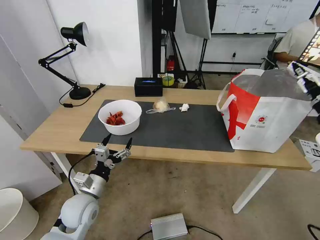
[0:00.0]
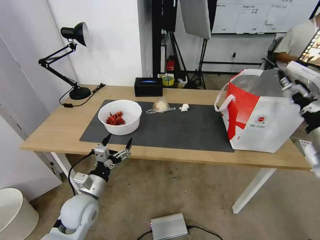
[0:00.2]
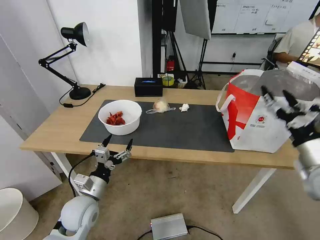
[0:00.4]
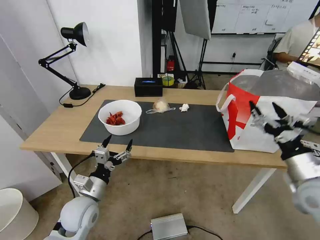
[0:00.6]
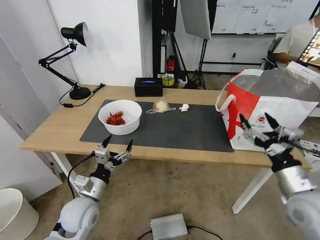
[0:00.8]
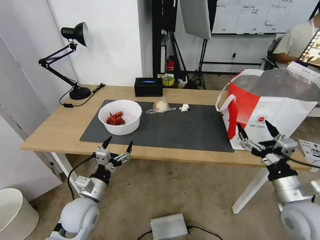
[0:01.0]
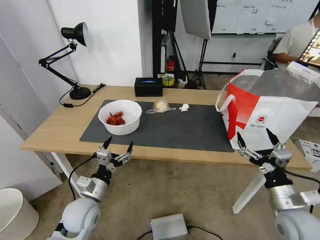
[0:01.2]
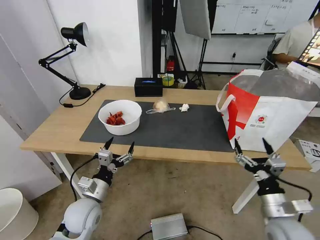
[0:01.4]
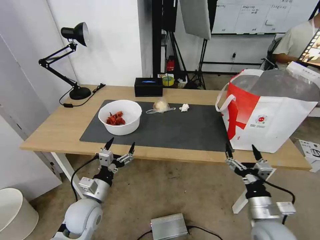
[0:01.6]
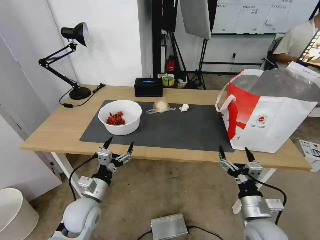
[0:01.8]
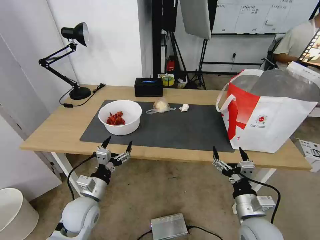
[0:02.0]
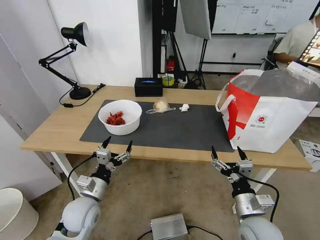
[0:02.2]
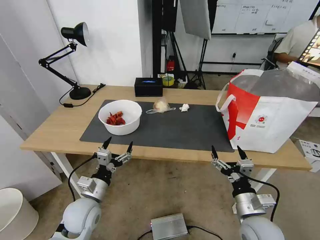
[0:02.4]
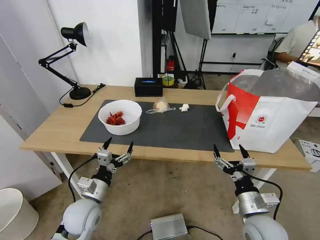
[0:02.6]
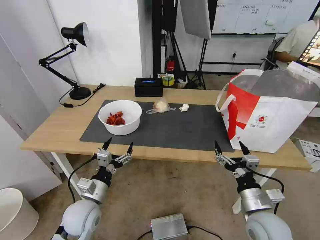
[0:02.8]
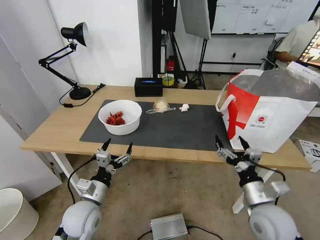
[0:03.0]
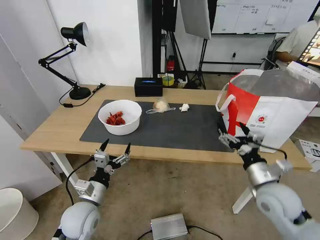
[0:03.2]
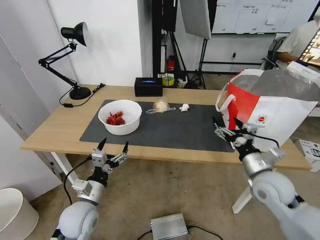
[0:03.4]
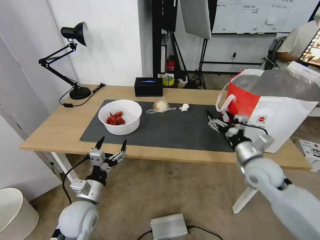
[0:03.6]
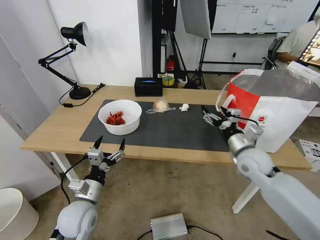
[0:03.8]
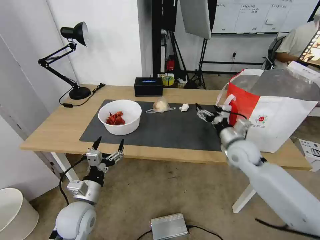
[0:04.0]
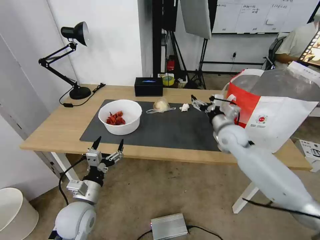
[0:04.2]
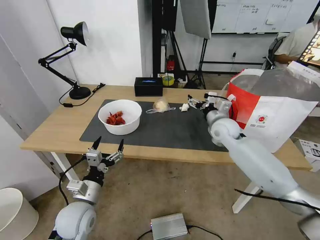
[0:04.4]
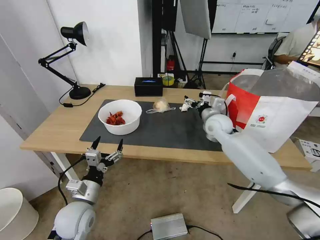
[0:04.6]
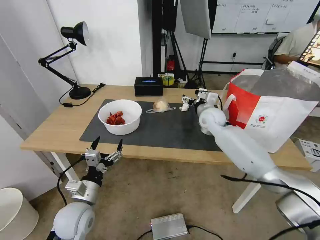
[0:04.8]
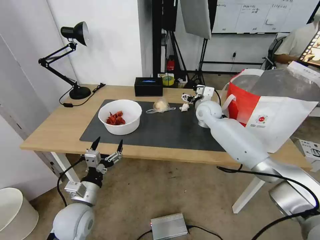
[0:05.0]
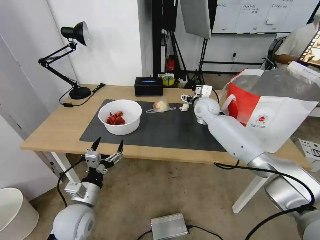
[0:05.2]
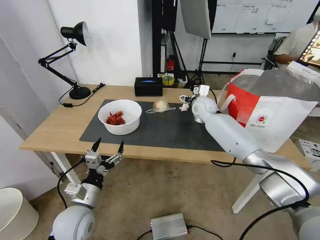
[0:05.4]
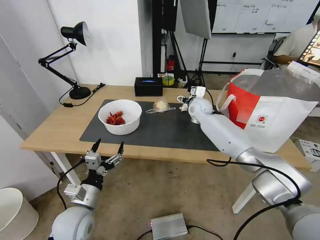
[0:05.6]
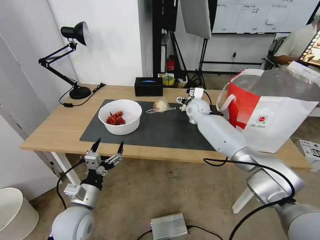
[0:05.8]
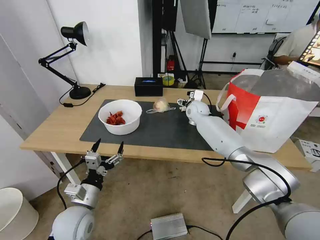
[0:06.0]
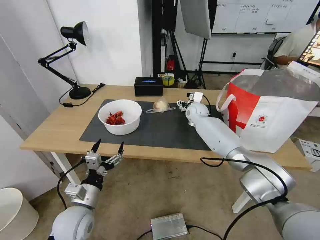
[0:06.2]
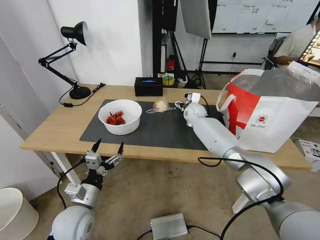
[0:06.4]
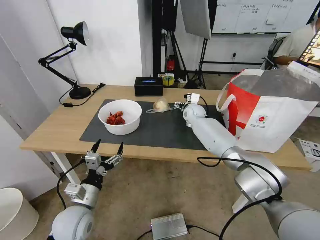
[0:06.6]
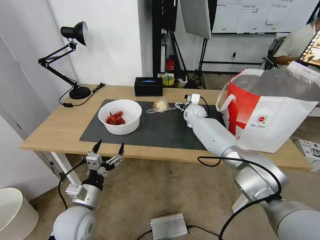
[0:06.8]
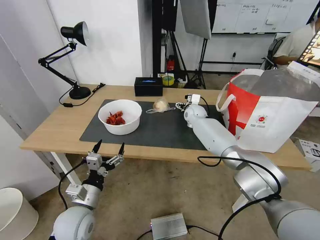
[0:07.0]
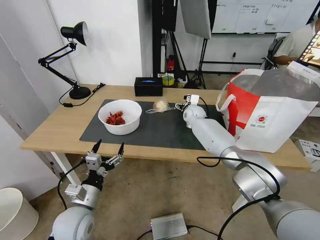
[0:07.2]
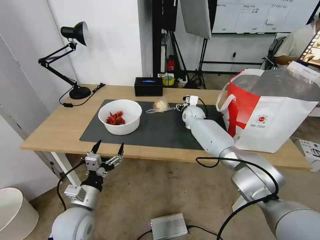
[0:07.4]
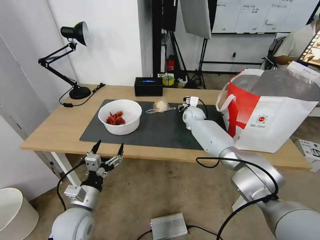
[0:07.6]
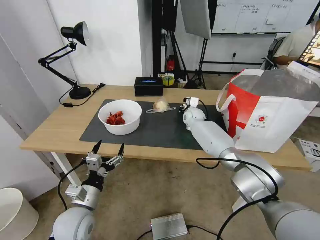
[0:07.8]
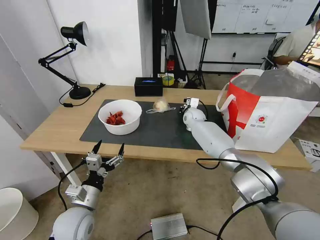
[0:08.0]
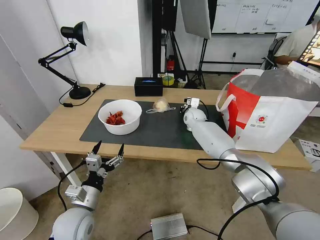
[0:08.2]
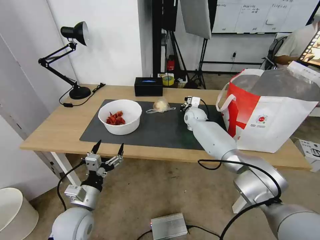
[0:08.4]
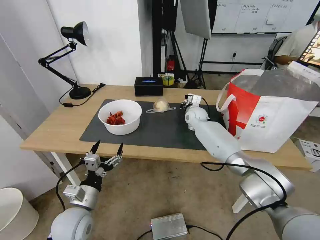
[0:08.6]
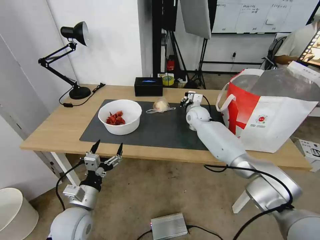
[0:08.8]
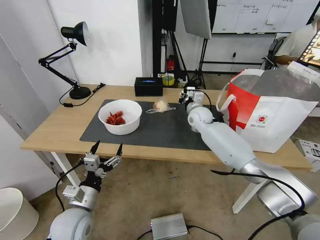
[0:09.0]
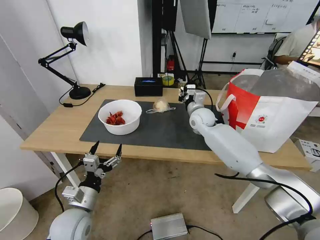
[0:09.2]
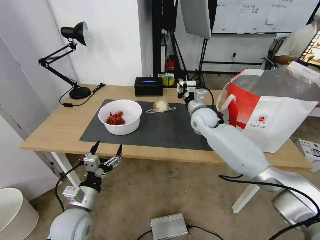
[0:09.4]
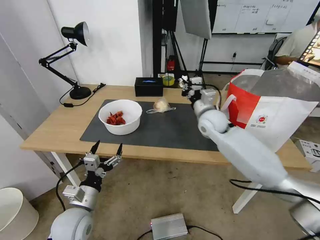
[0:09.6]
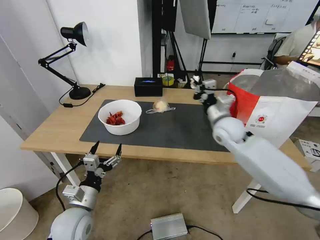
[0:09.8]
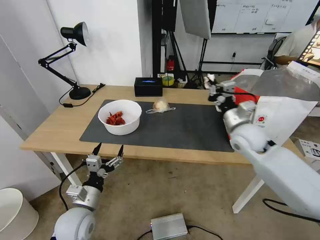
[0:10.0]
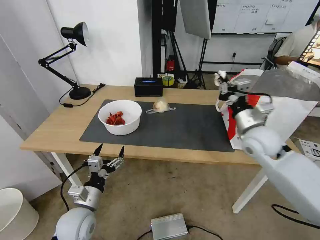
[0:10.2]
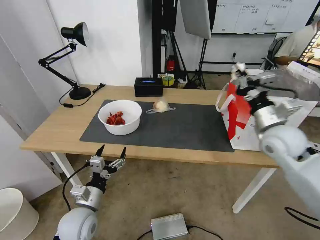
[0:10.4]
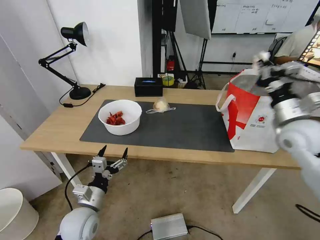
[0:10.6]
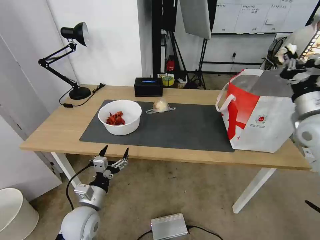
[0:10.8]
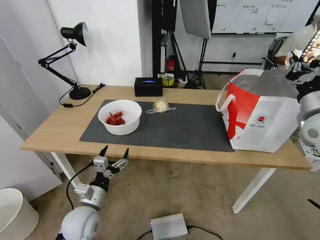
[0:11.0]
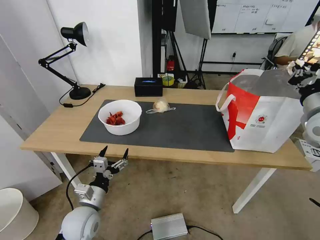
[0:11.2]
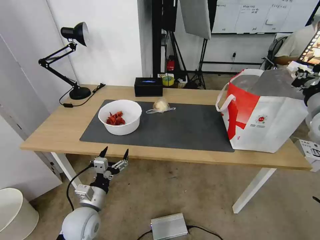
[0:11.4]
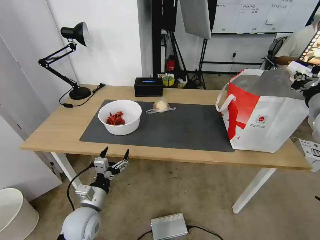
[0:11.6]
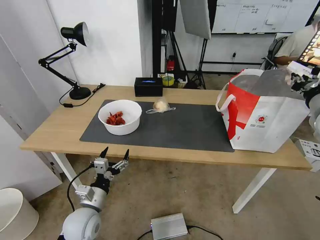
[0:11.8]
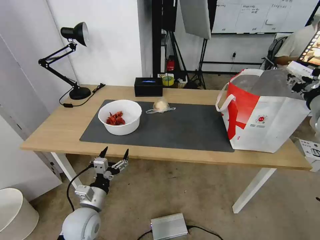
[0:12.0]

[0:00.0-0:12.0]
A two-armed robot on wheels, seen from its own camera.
Task of the whole recording: Pick up the trash from the table and place it into the takeout bag.
0:00.0 to 0:01.6: The right gripper moves downward, to the left and backward, roughly 30 cm.
0:01.6 to 0:03.0: The right gripper shifts by roughly 5 cm.
0:03.0 to 0:04.4: The right gripper goes approximately 30 cm forward.
0:04.4 to 0:06.0: The right gripper goes about 15 cm forward and to the left.
0:06.0 to 0:07.6: The right gripper closes.
0:07.6 to 0:09.0: The right gripper is displaced backward by roughly 5 cm, and closes its fingers.
0:09.0 to 0:10.4: The right gripper goes about 30 cm backward, to the right and upward.
0:10.4 to 0:12.0: The right gripper is displaced to the right and upward by roughly 15 cm, and opens up.

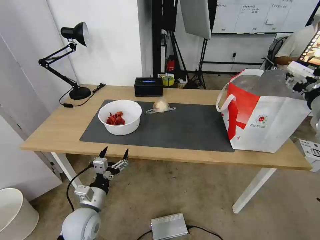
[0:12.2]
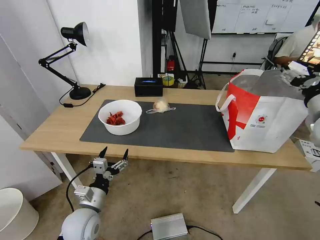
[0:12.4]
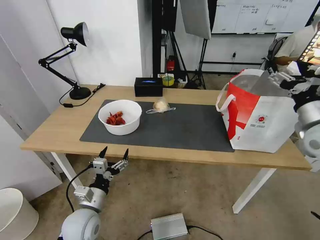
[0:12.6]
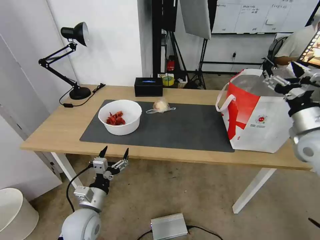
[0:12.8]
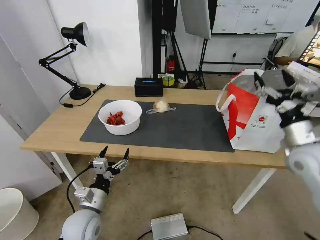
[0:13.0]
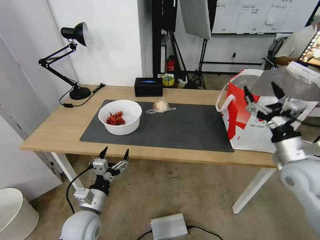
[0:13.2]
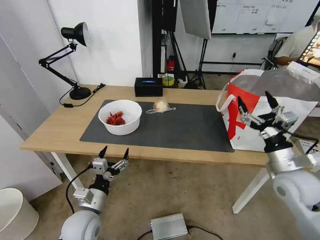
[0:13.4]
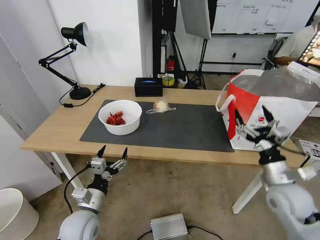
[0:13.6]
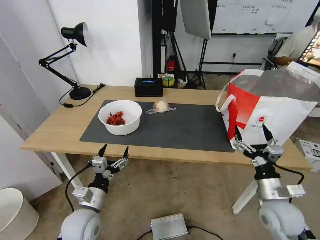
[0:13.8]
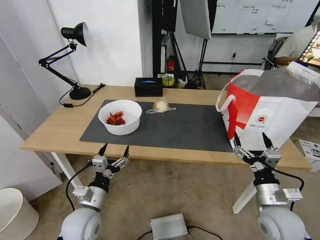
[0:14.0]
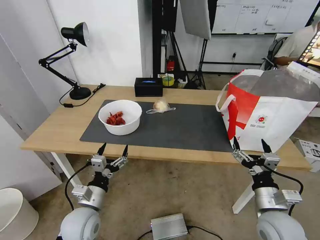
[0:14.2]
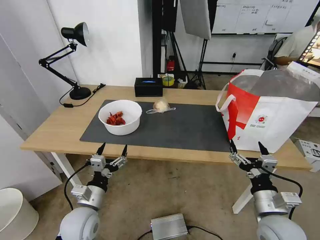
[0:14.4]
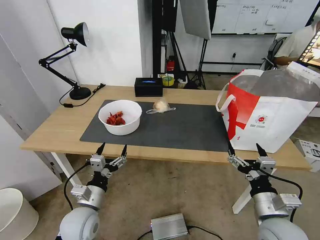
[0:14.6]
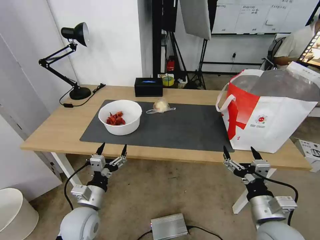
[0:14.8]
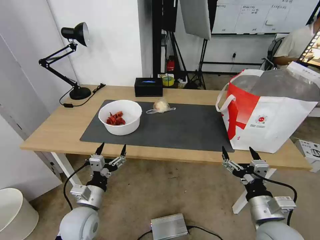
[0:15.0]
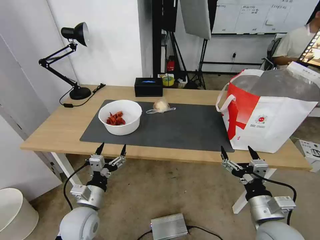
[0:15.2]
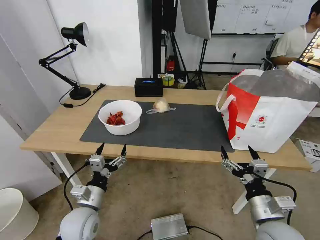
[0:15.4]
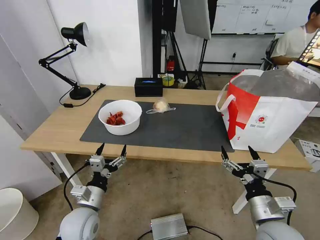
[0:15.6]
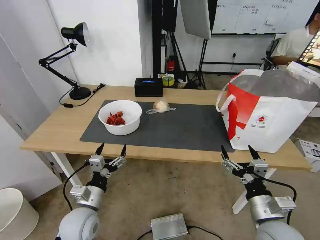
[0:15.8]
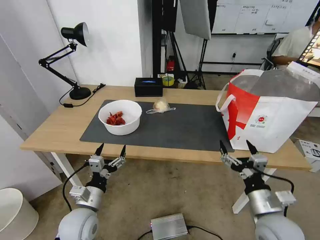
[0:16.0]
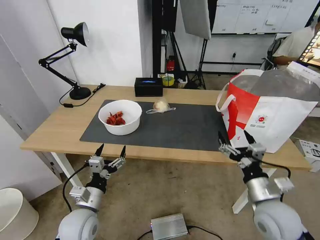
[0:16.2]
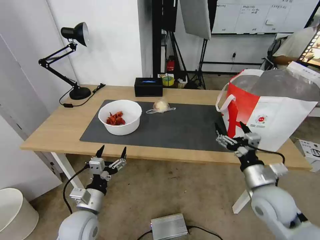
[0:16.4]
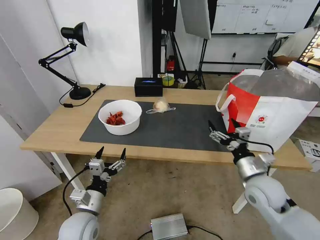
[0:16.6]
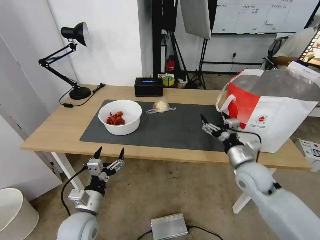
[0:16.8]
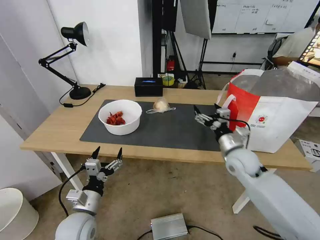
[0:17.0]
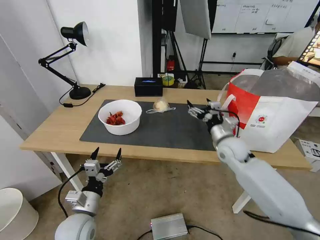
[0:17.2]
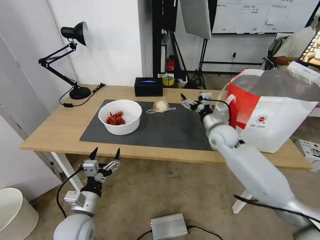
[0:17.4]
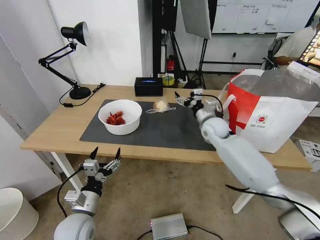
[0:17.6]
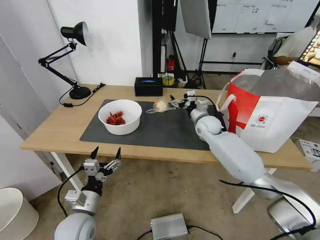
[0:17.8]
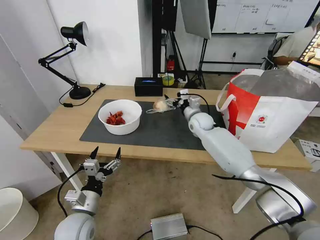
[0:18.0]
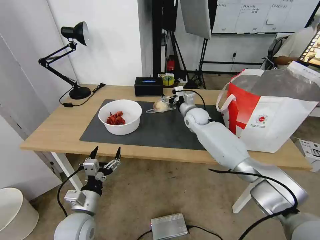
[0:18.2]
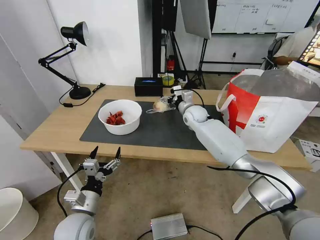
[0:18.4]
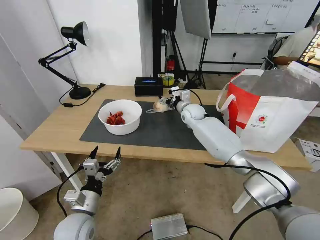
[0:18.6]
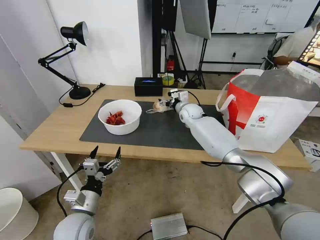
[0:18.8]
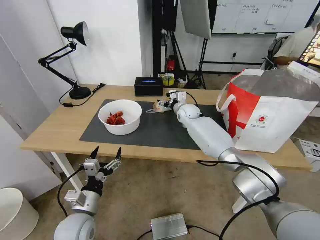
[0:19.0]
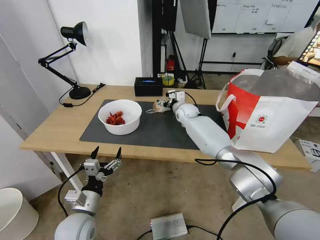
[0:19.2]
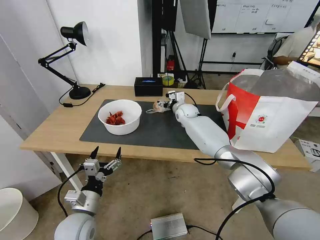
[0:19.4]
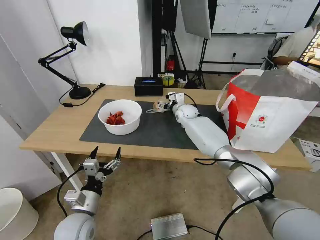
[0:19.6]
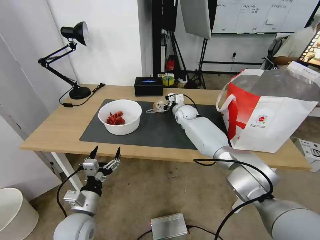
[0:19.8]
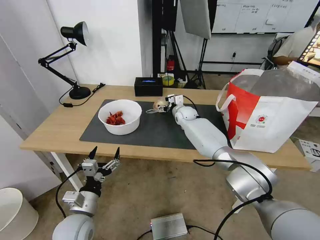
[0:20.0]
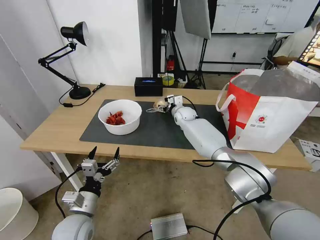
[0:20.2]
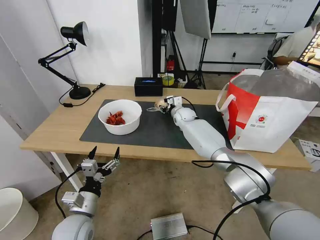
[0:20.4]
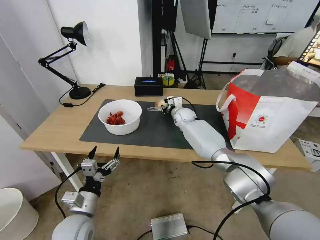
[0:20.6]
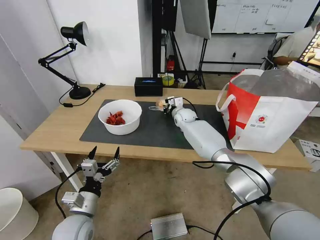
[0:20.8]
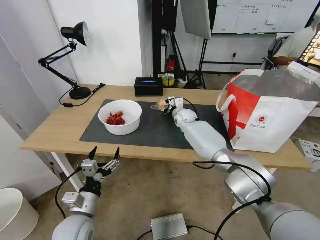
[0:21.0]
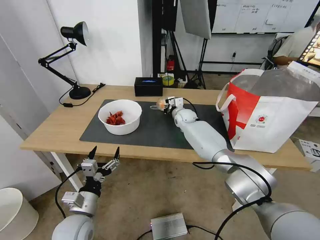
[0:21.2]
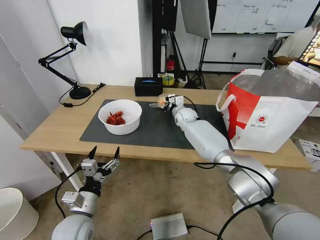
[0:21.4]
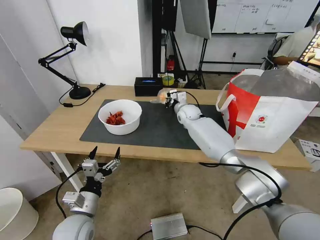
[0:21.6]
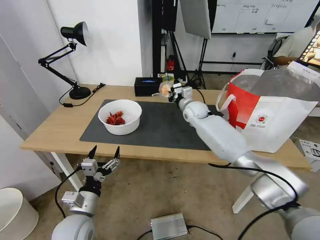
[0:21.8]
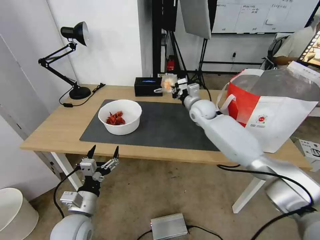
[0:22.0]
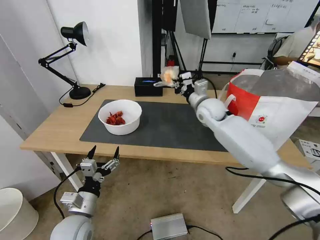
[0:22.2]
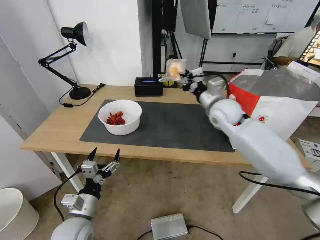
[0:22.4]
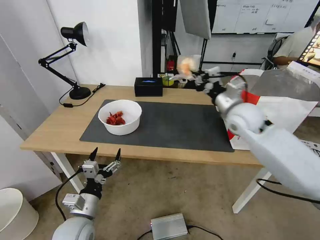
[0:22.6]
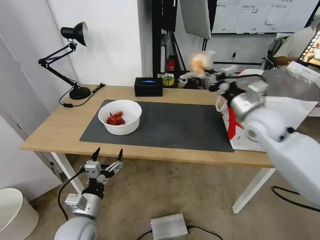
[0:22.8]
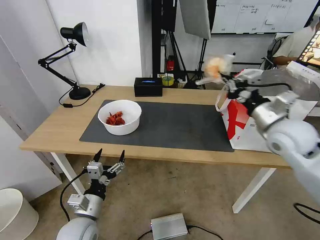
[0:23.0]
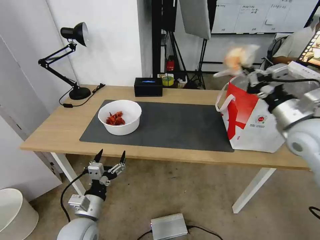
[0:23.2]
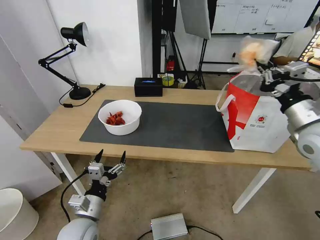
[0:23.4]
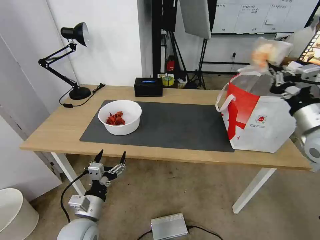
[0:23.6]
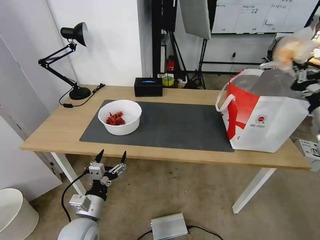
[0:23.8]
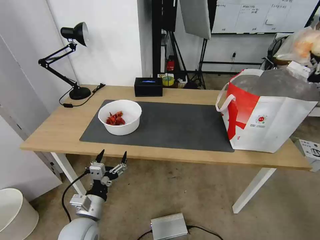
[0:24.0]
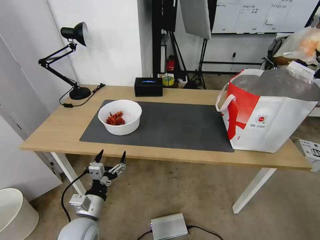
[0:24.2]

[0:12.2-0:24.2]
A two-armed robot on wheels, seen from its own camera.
Task of the whole recording: Pick up the trash from the table and place it into the takeout bag.
0:12.2 to 0:13.8: The right gripper travels downward, backward and to the left by approximately 30 cm.
0:13.8 to 0:15.2: The right gripper moves backward and to the left, about 10 cm.
0:15.2 to 0:16.6: The right gripper is displaced forward by roughly 10 cm.
0:16.6 to 0:18.2: The right gripper travels forward and to the left by some 35 cm.
0:18.2 to 0:19.8: The right gripper changes place by roughly 5 cm.
0:19.8 to 0:21.2: The right gripper closes its fingers.
0:21.2 to 0:22.6: The right gripper shifts roughly 25 cm backward, upward and to the right.
0:22.6 to 0:24.2: The right gripper travels to the right and backward by approximately 25 cm.
